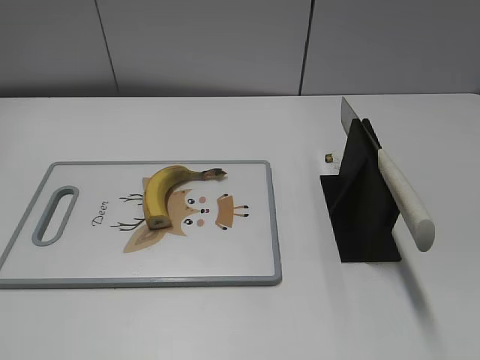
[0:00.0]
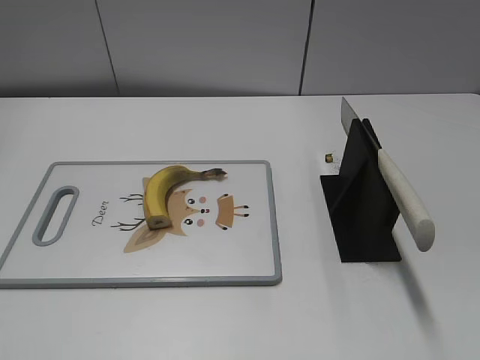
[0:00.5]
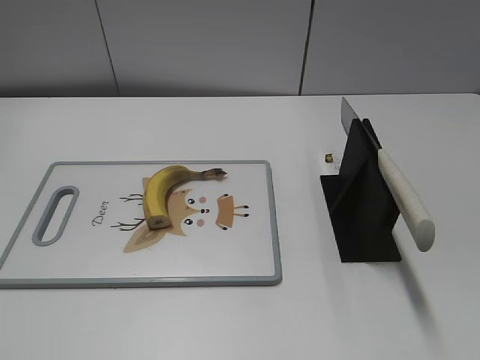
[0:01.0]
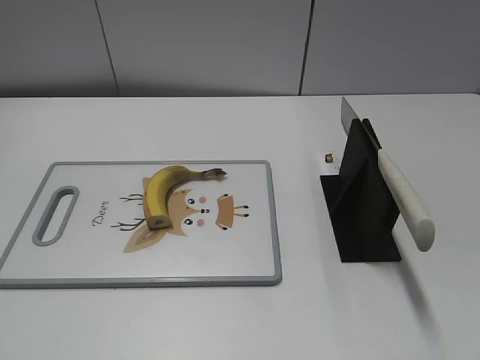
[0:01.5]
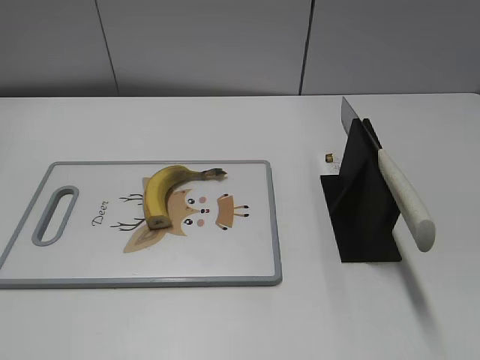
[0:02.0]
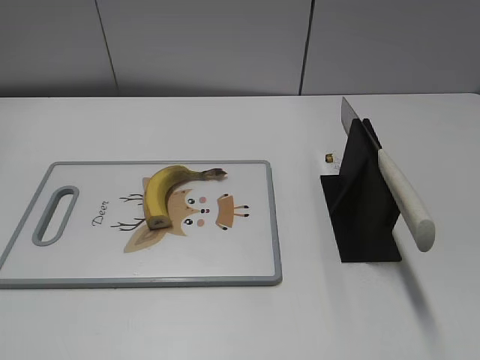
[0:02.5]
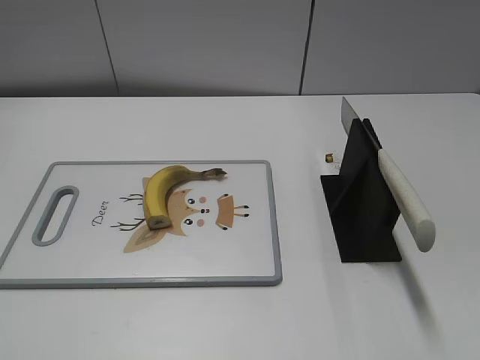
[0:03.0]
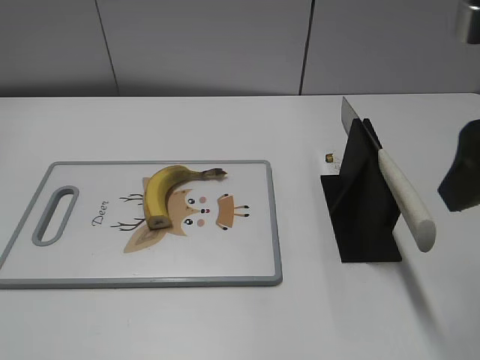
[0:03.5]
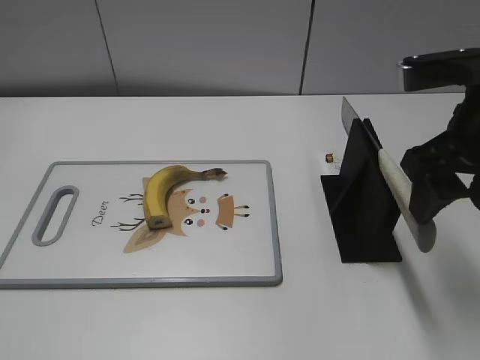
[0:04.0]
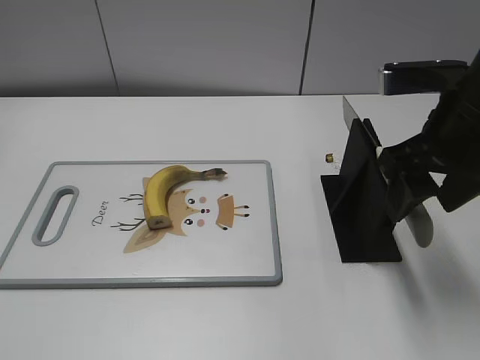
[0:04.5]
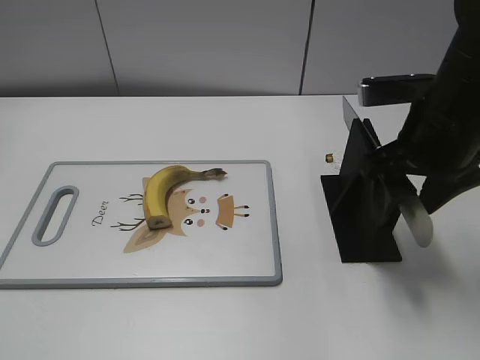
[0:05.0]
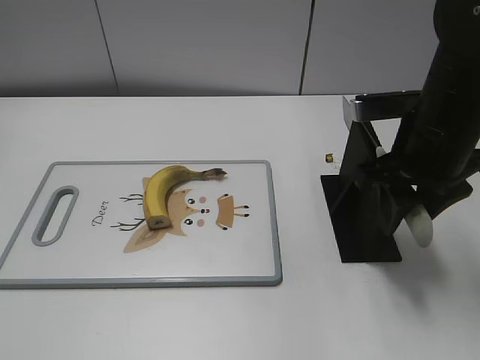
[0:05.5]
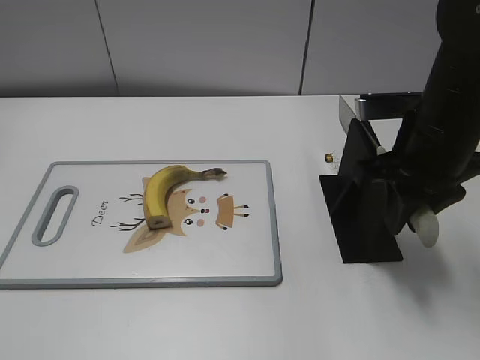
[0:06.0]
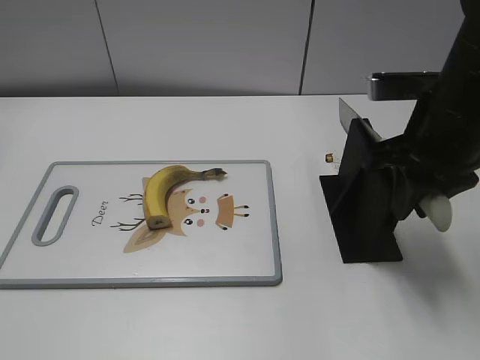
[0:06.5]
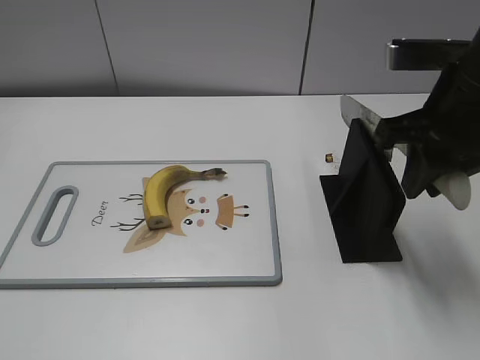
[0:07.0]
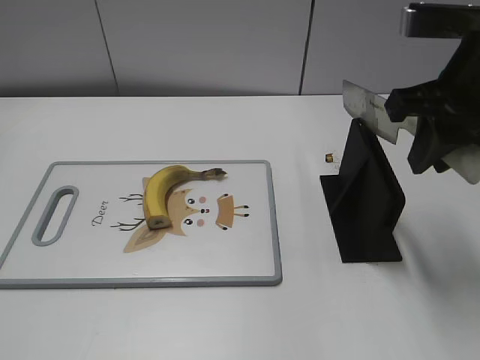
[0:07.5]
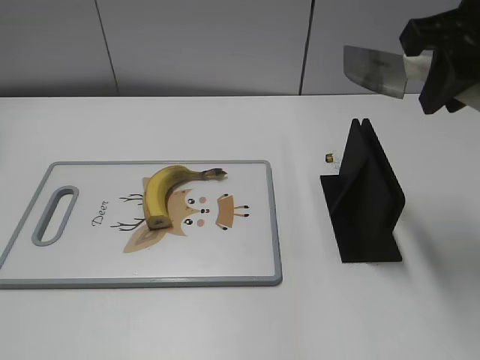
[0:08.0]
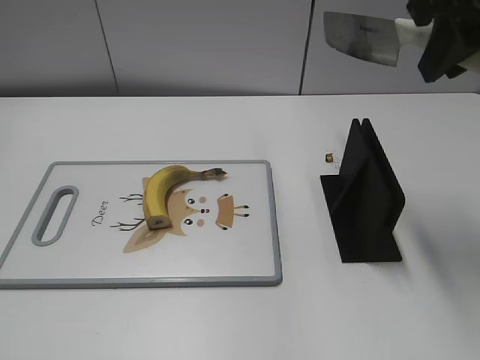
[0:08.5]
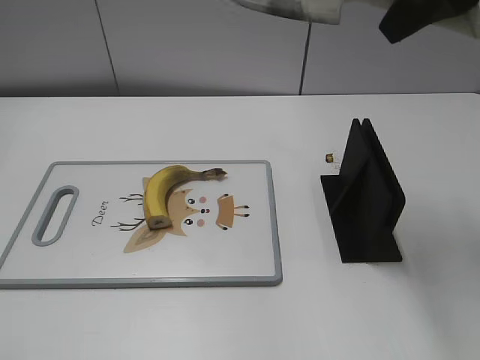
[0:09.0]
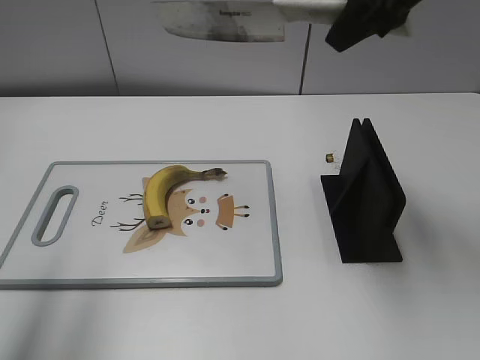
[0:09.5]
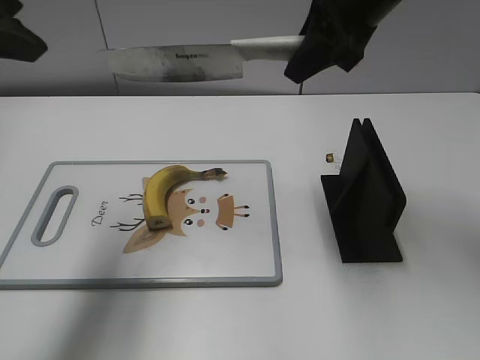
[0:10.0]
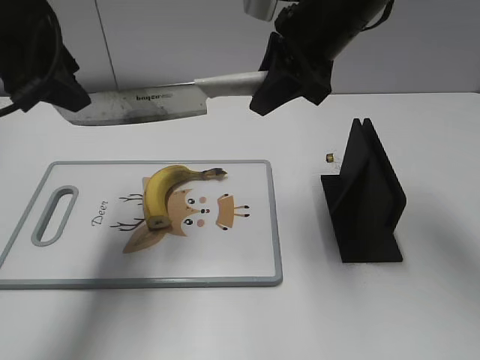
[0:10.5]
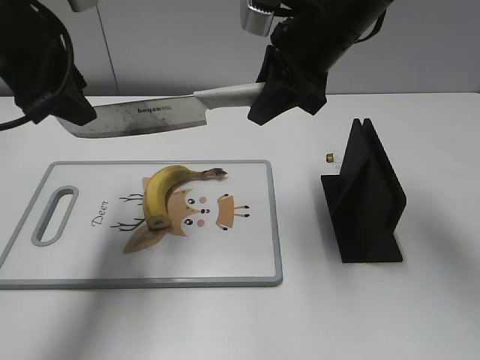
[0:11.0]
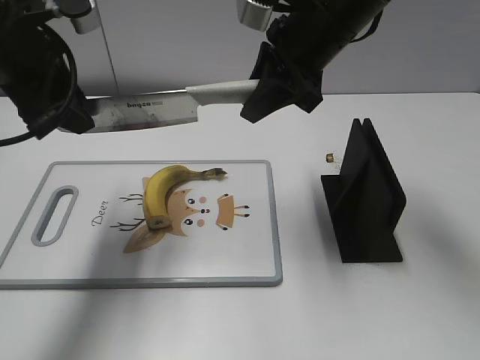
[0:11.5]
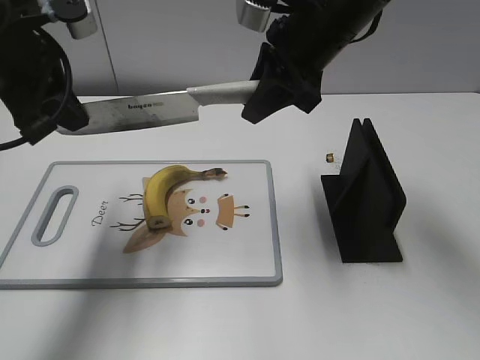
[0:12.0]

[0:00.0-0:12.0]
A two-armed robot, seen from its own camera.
Task of the whole recording: cut banana.
Step, 0:00.0 to 0:07.0: Grab the knife handle with your right hand.
0:02.0 to 0:04.0: The right gripper goes roughly 25 cm forward and to the left.
0:04.0 to 0:06.0: The right gripper heads downward, covering about 5 cm, and closes up.
0:06.0 to 0:08.0: The right gripper goes approximately 15 cm upward.
0:08.0 to 0:10.0: The left gripper heads forward, covering approximately 25 cm; the right gripper is displaced forward and to the left by approximately 10 cm.
0:10.0 to 0:12.0: The right gripper changes place by approximately 5 cm. The left gripper travels downward and forward by approximately 10 cm, and closes up.

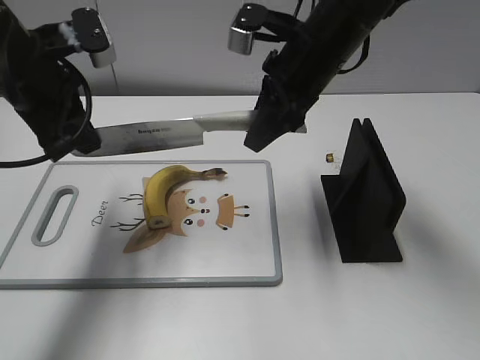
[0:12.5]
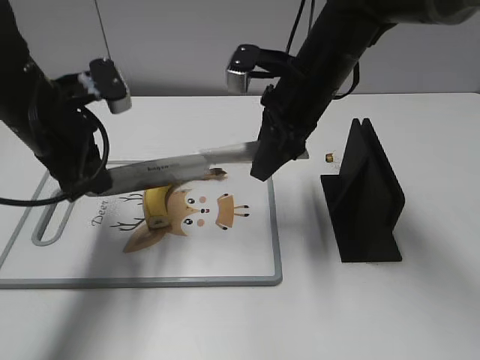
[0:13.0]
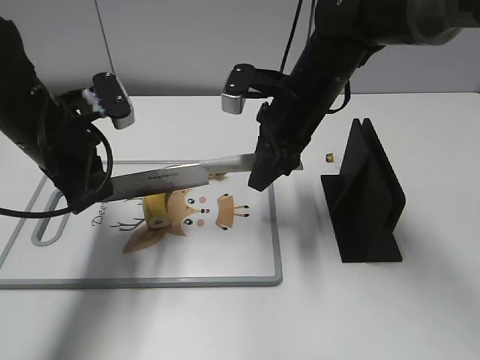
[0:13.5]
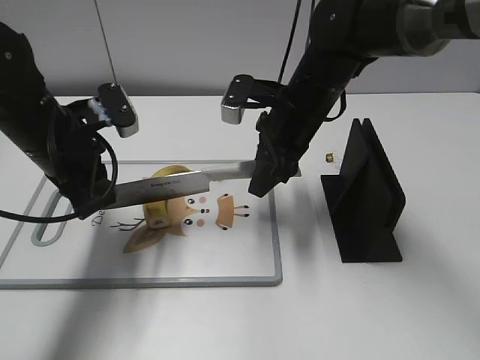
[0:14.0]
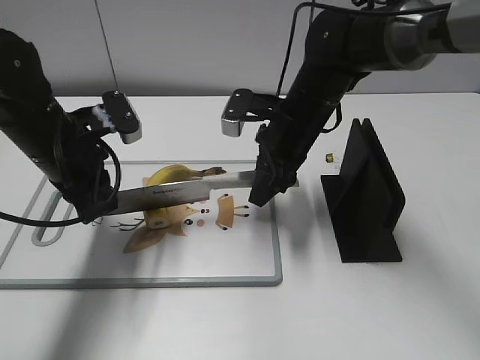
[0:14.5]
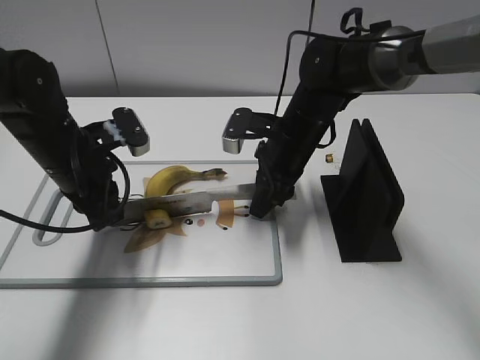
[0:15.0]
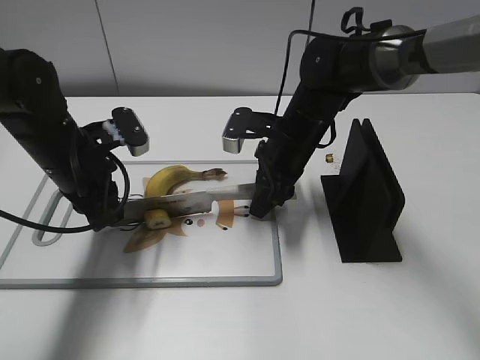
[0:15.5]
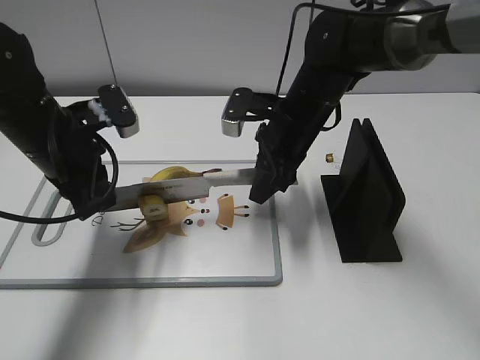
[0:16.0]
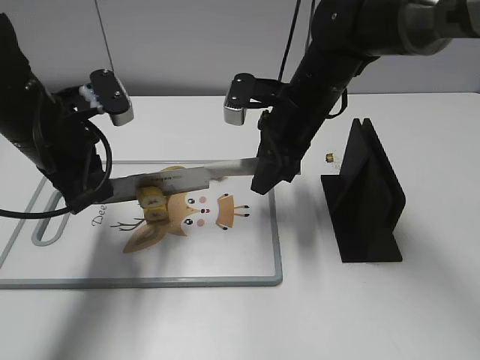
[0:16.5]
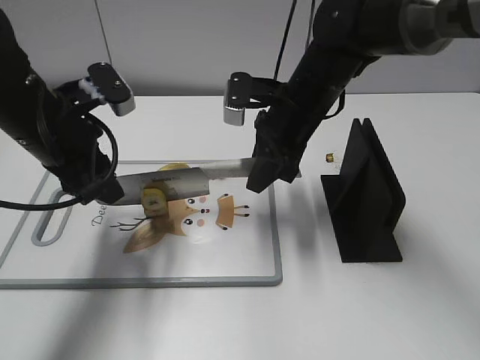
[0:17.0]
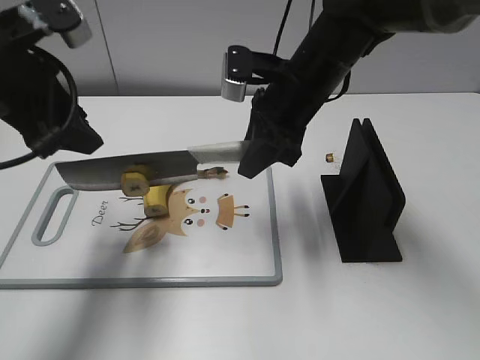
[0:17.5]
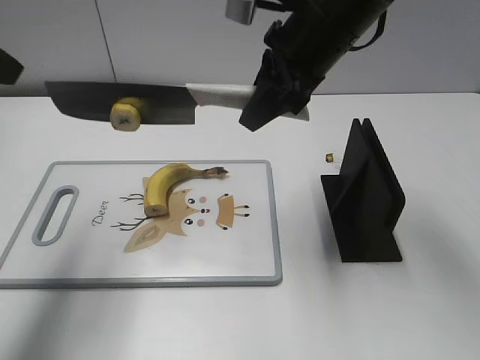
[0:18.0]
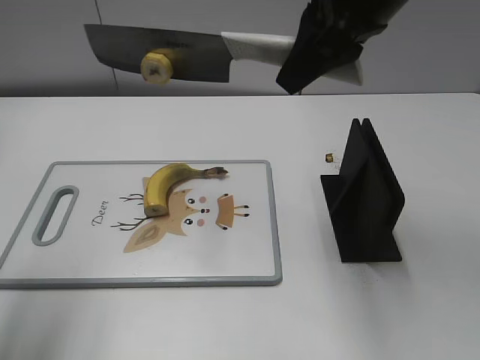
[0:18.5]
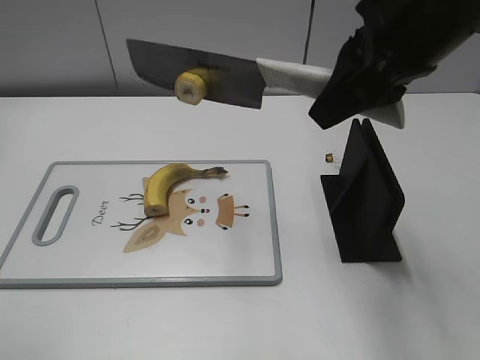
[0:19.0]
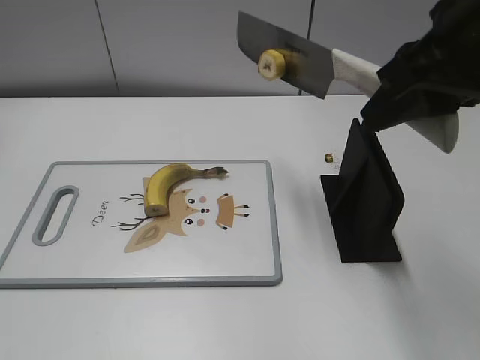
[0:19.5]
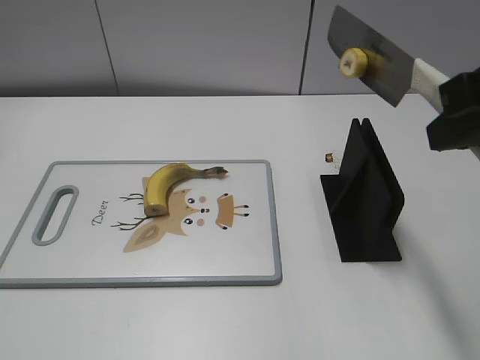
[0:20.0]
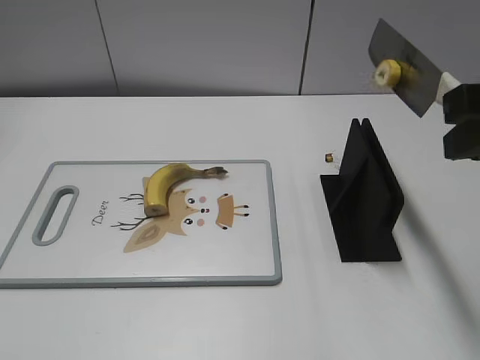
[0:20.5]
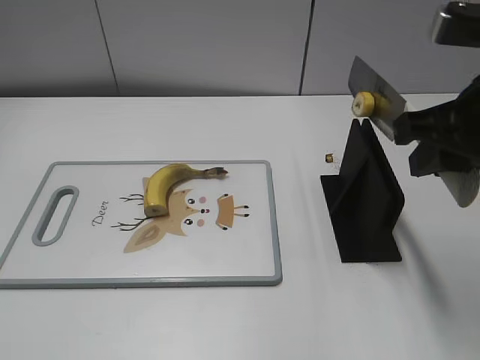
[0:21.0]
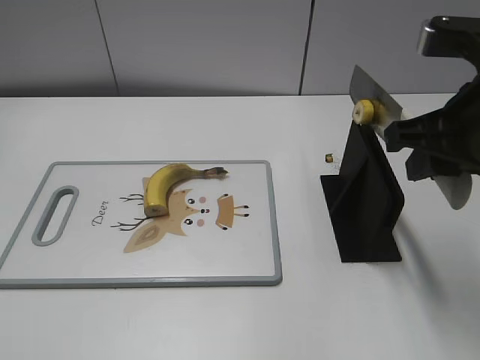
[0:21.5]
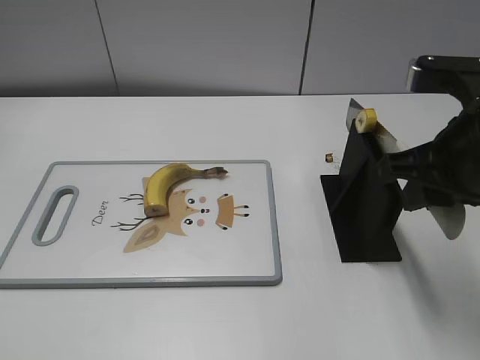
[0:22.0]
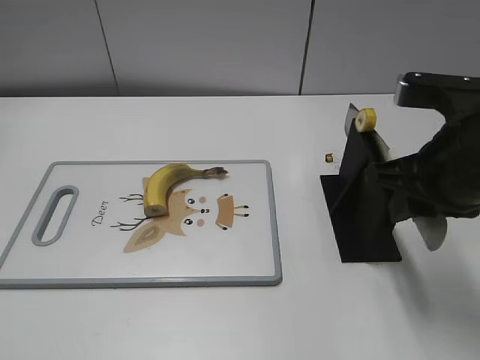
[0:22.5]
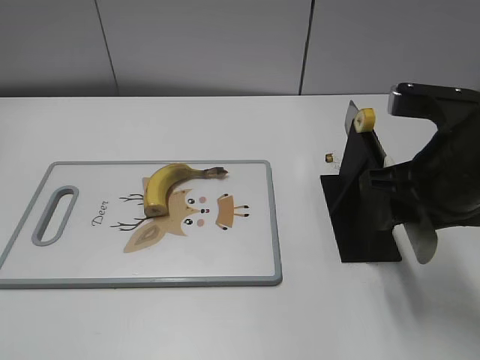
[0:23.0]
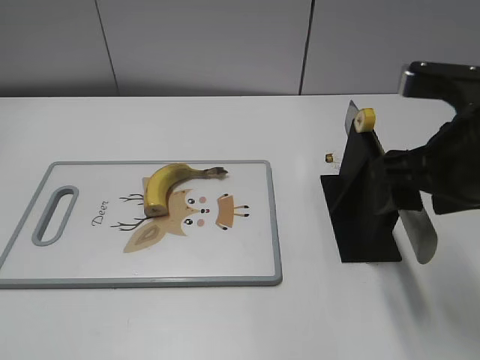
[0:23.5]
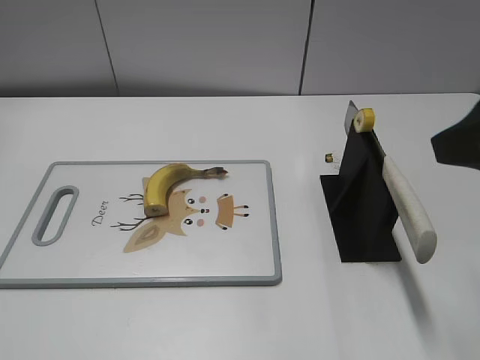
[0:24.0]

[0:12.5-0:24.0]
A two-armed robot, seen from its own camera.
Task of the whole recording: cut banana.
Step, 0:12.5 to 0:15.0: Lift the knife with your right hand.
Step, 0:15.5 to 0:19.0: Cut the banana with your right hand.
0:12.5 to 0:14.5: Both grippers move downward, roughly 10 cm.
0:14.5 to 0:16.5: There are only small adjustments of the grippers.
0:16.5 to 0:18.5: The right gripper moves upward, about 20 cm; the left gripper shifts about 20 cm upward, backward and to the left, and opens up.
0:18.5 to 0:20.0: The right gripper goes some 15 cm backward and to the right. Meanwhile the left gripper moves backward and downward, about 25 cm.
0:20.0 to 0:22.0: The right gripper travels downward by about 10 cm.
0:22.0 to 0:24.0: The right gripper heads upward and backward, covering roughly 10 cm, and opens up.
